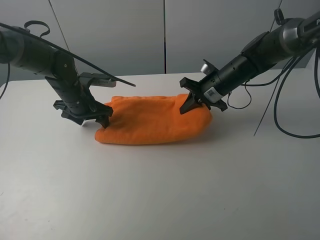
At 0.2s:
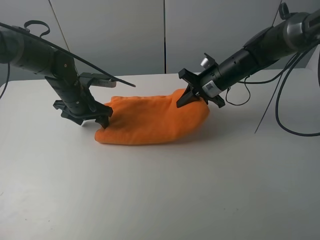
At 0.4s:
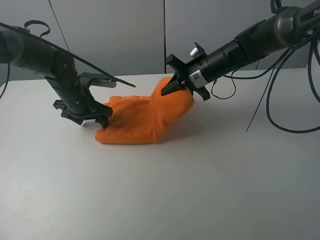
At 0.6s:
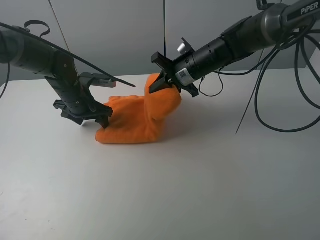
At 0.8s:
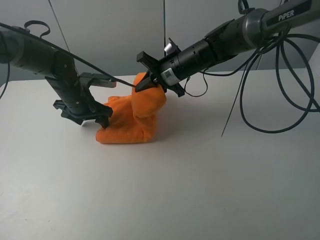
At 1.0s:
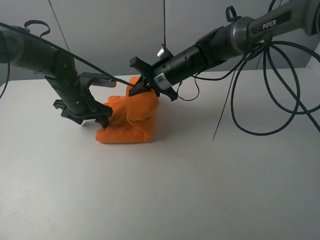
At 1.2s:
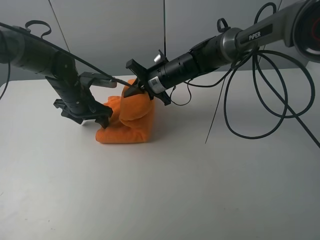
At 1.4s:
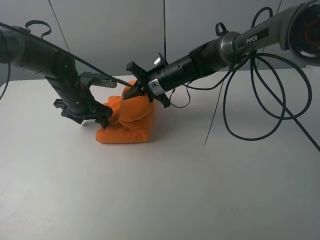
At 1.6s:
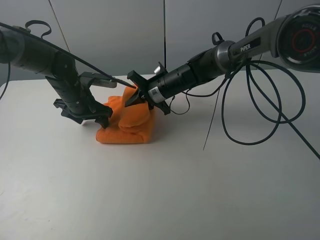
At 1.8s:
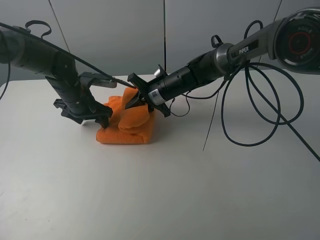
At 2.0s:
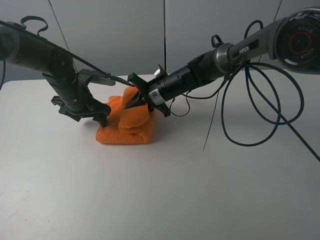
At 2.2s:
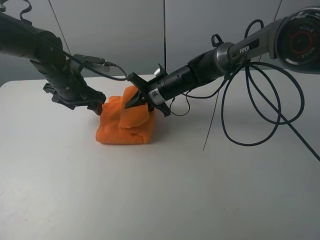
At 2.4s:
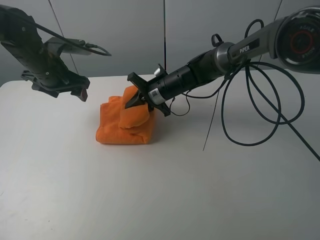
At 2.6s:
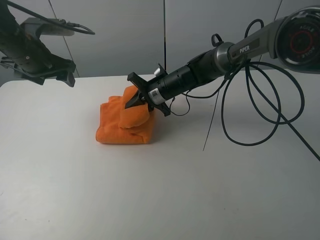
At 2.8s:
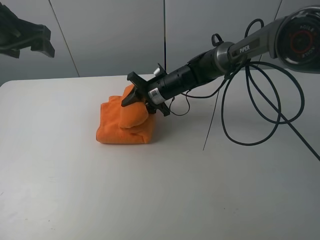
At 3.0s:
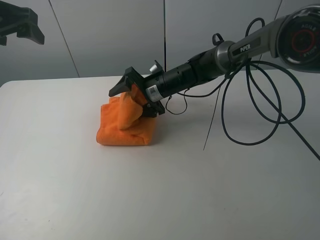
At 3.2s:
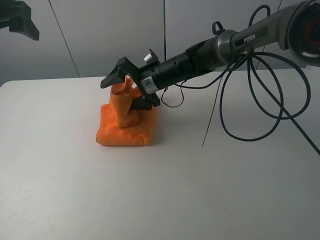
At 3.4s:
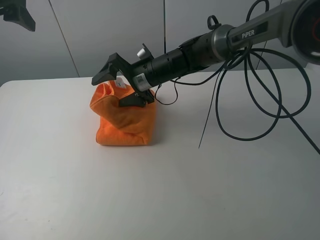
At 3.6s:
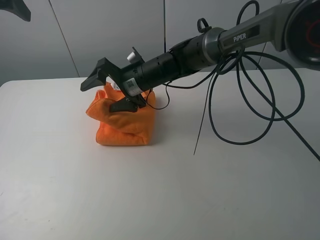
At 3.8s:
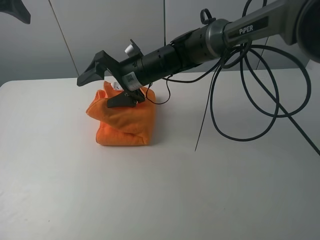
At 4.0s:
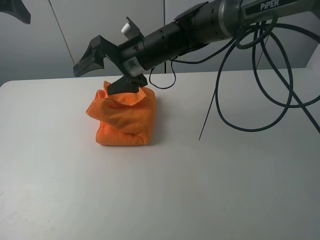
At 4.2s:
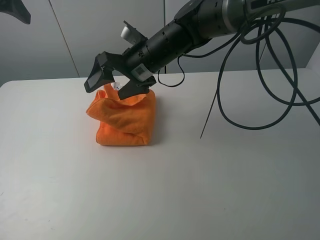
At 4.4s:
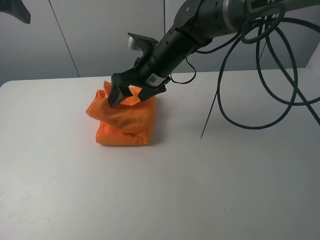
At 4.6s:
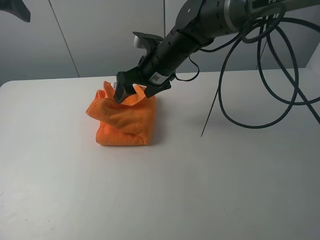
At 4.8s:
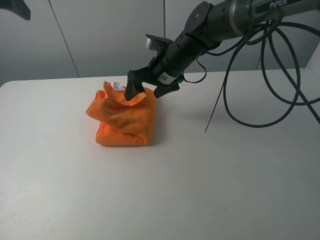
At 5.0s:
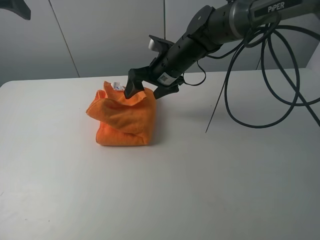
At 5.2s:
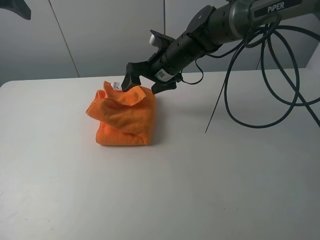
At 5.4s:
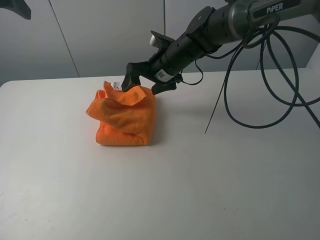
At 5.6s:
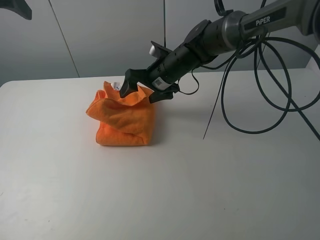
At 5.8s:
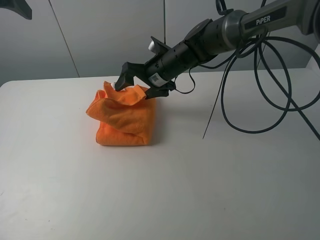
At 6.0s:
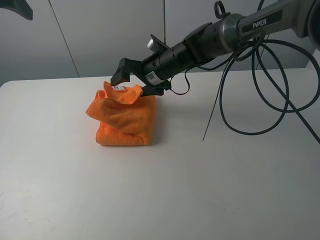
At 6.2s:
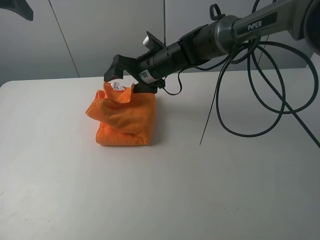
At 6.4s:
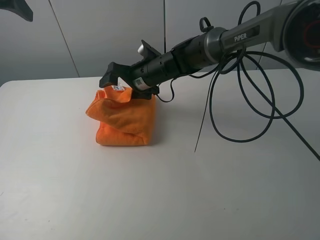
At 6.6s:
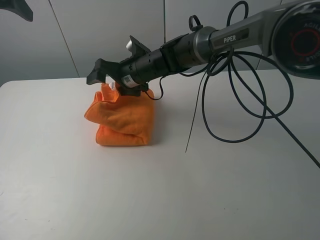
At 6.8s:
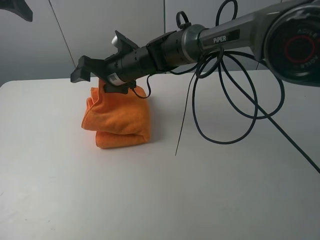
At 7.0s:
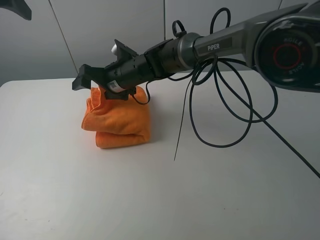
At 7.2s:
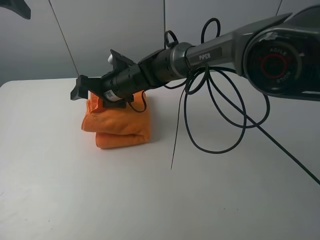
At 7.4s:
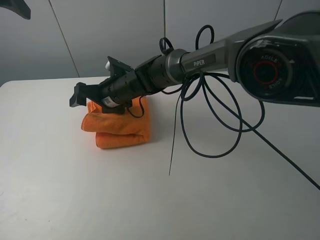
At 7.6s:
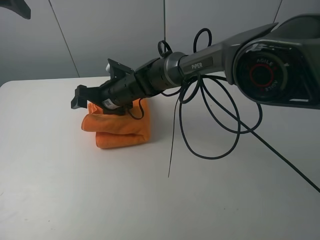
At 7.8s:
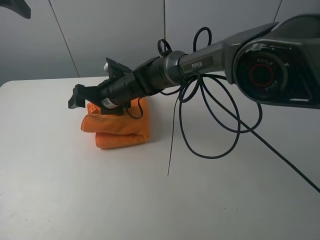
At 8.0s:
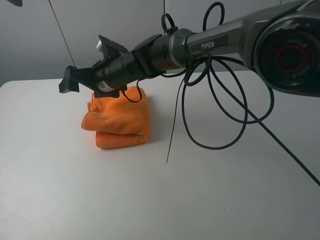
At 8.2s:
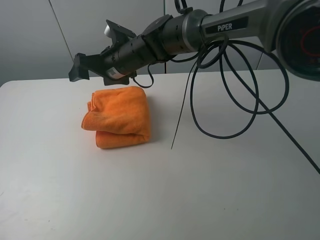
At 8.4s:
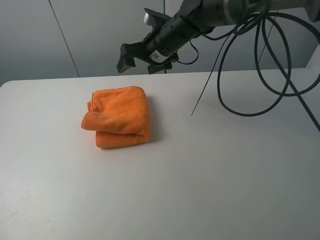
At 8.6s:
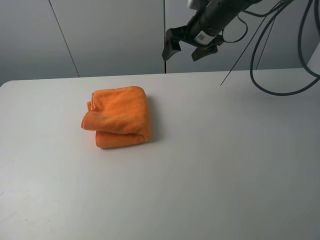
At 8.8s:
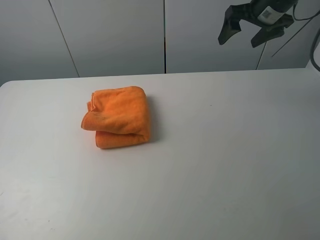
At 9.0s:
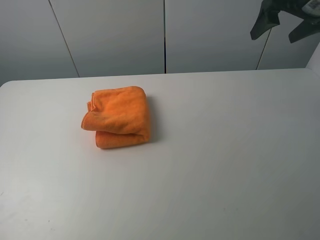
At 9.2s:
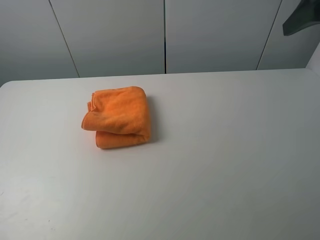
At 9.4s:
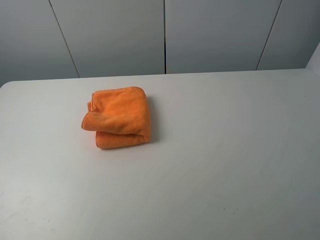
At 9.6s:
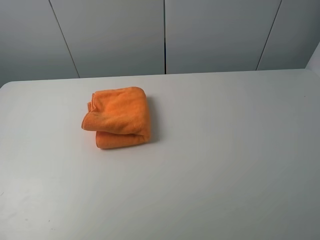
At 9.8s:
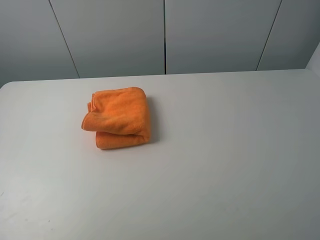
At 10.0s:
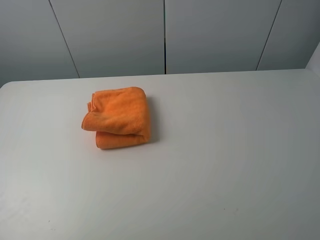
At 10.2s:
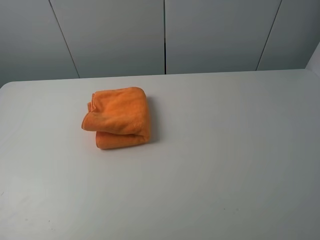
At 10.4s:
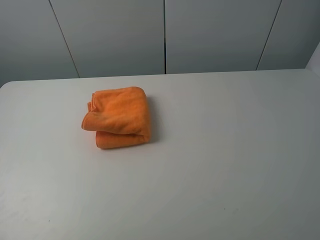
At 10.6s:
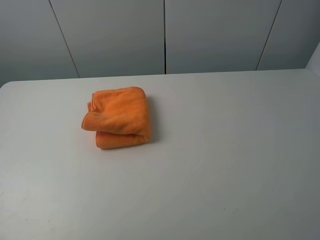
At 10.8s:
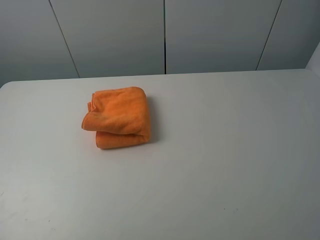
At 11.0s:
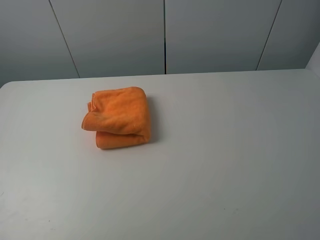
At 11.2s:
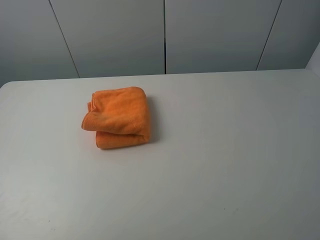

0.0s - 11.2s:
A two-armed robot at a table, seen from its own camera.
Task of the whole recording: fold the towels on the table.
Step, 0.0s - 3.8s: Fold the orange towel from right to left with right gripper.
Step, 4.0s - 8.2s: Arrange the orange towel with the right hand.
0.0s - 1.6s: The right gripper heads to the left, covering roughly 15 cm.
1.6s - 3.2s: The right gripper shifts by approximately 5 cm, and opens up, while the left gripper moves upward, some 25 cm.
4.8s - 6.4s: The right gripper travels to the left by about 5 cm.
6.4s - 8.0s: The right gripper is displaced to the left by some 5 cm.
8.0s - 9.6s: The left gripper heads backward, covering some 25 cm. Meanwhile the right gripper shifts about 50 cm to the right, backward and upward.

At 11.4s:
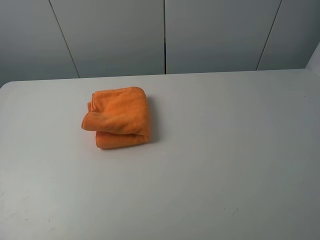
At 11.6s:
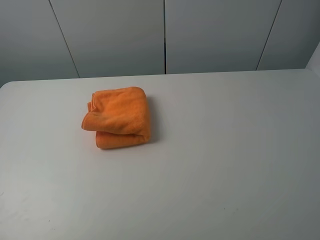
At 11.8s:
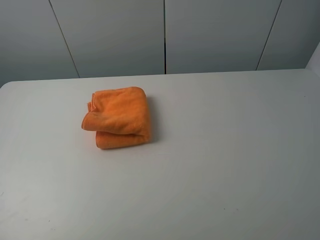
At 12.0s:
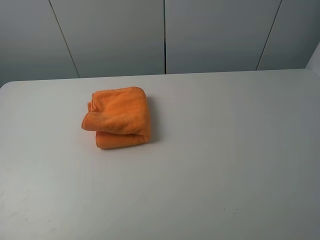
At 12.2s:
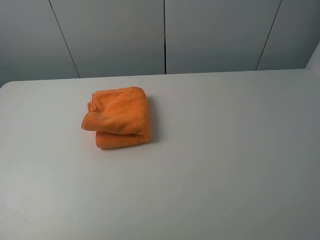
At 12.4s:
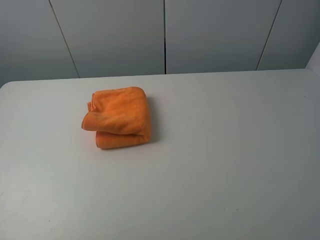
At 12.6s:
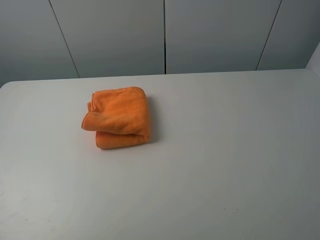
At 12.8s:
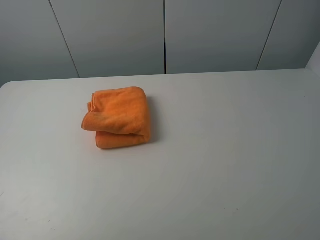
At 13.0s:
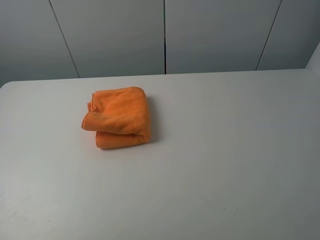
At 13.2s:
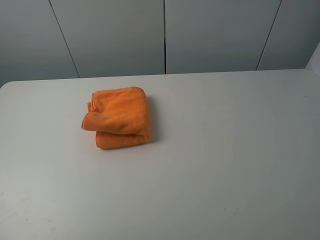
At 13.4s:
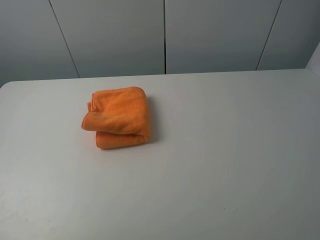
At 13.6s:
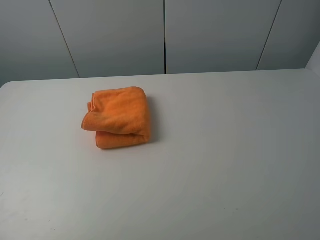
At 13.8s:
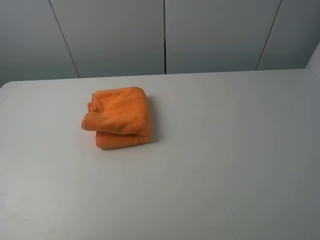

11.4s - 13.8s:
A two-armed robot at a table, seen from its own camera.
Task of the whole recording: fold the towels on the table.
12.6s - 13.8s: Both grippers stay put.

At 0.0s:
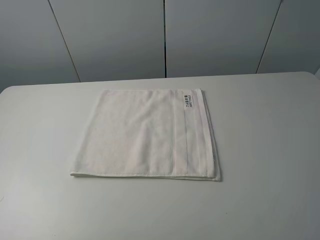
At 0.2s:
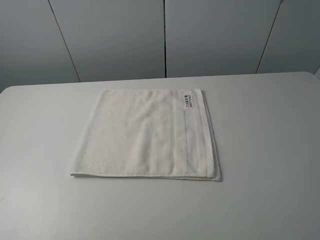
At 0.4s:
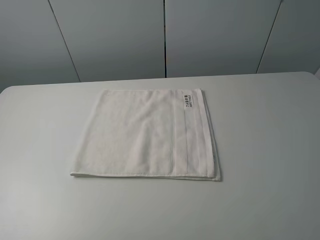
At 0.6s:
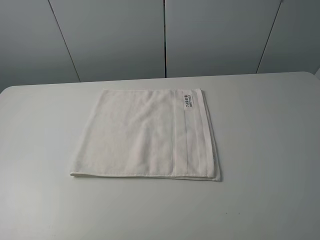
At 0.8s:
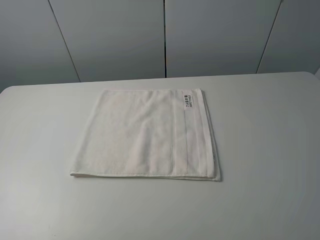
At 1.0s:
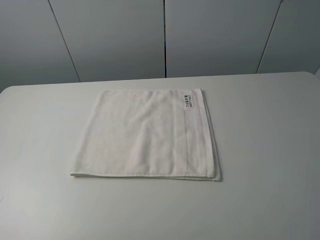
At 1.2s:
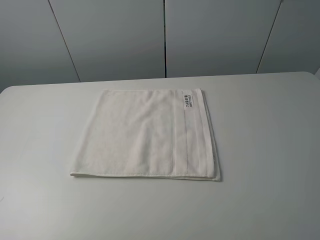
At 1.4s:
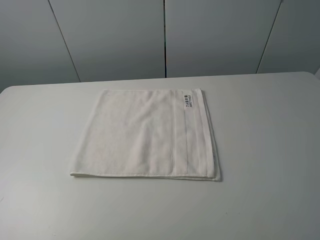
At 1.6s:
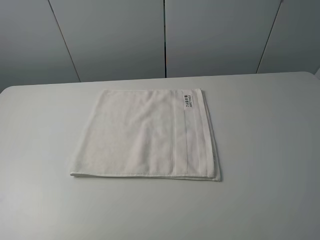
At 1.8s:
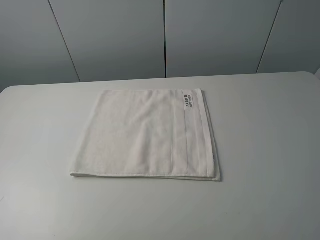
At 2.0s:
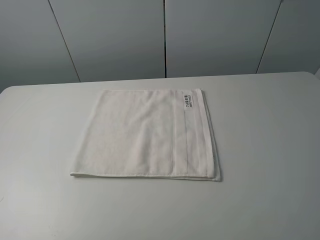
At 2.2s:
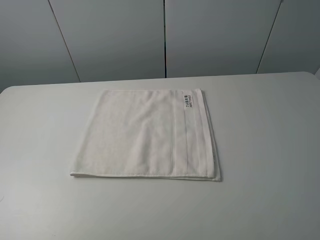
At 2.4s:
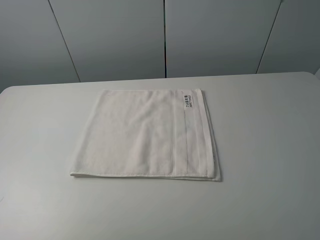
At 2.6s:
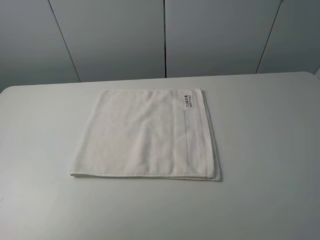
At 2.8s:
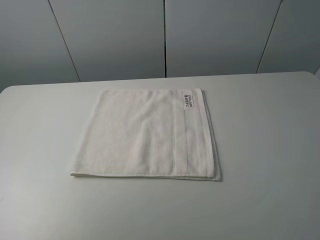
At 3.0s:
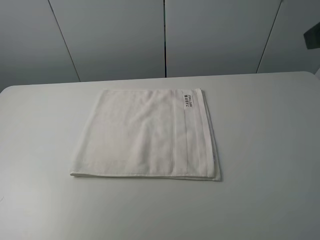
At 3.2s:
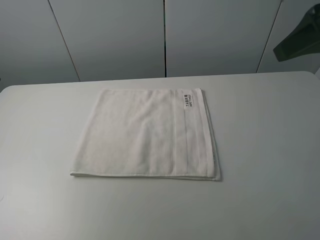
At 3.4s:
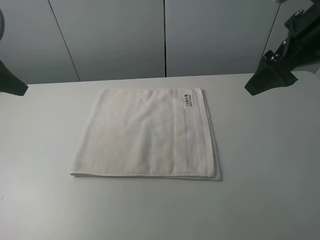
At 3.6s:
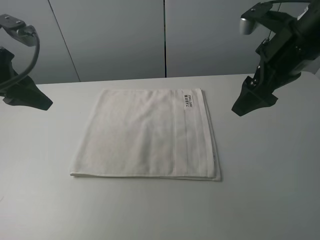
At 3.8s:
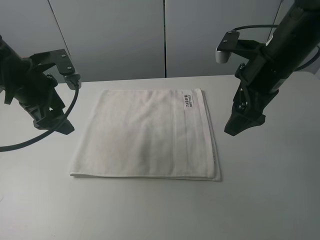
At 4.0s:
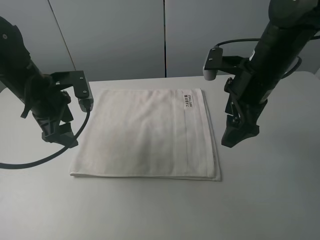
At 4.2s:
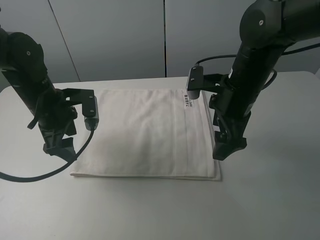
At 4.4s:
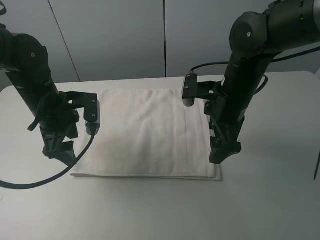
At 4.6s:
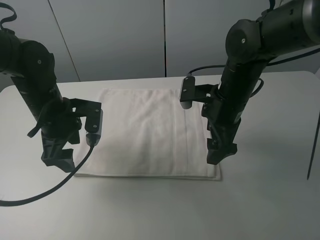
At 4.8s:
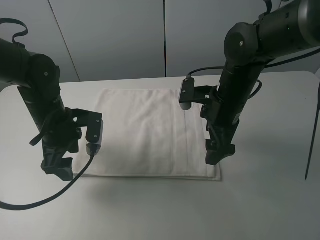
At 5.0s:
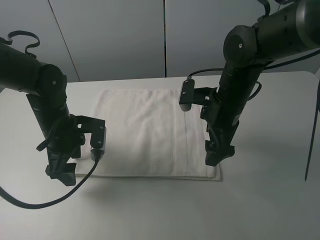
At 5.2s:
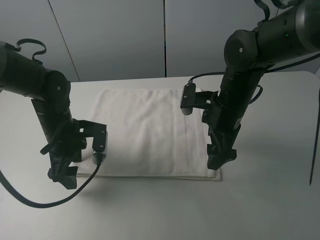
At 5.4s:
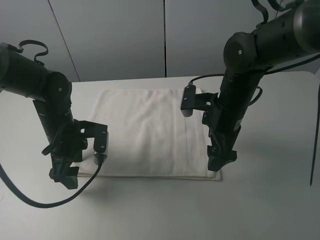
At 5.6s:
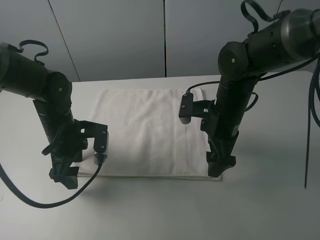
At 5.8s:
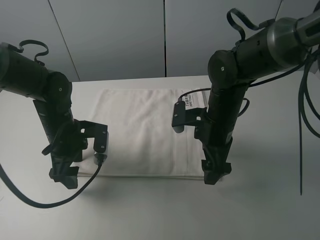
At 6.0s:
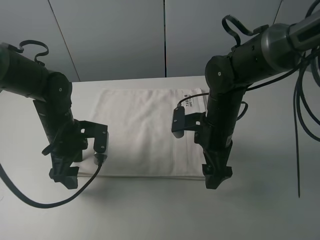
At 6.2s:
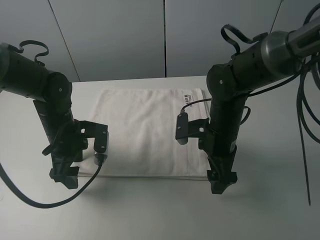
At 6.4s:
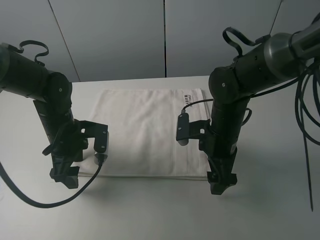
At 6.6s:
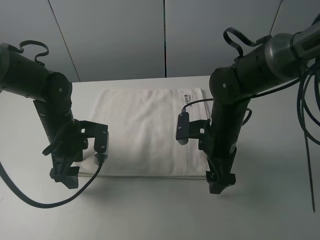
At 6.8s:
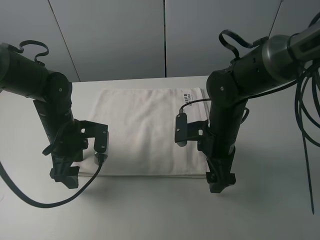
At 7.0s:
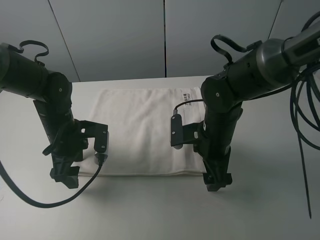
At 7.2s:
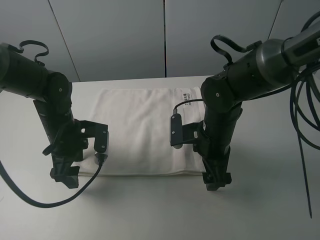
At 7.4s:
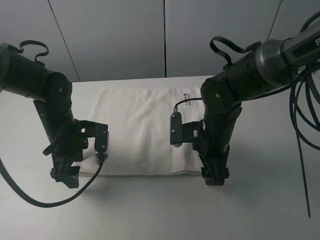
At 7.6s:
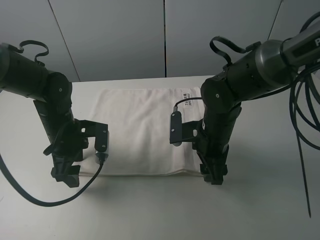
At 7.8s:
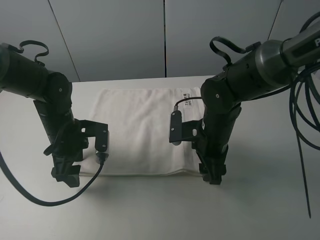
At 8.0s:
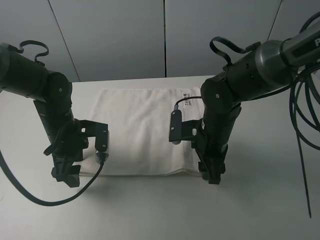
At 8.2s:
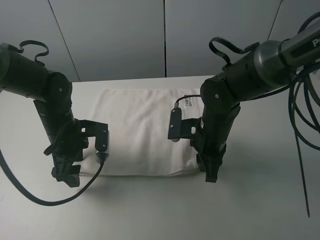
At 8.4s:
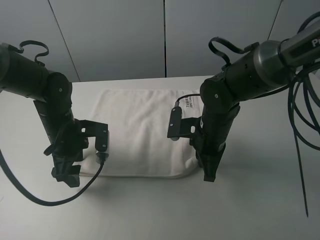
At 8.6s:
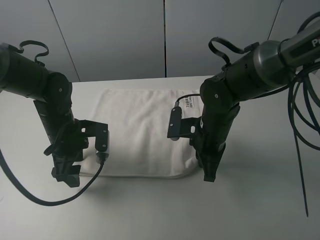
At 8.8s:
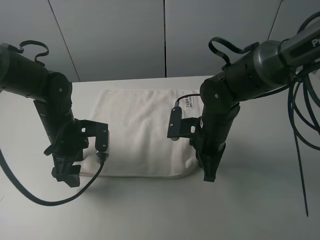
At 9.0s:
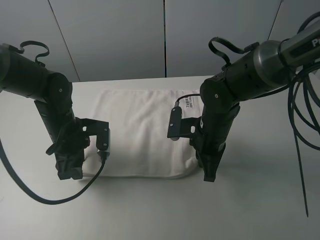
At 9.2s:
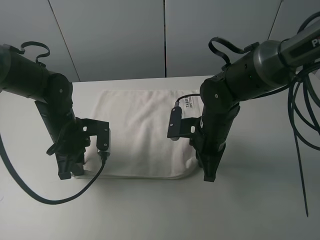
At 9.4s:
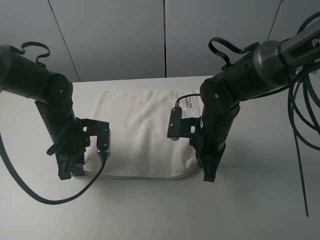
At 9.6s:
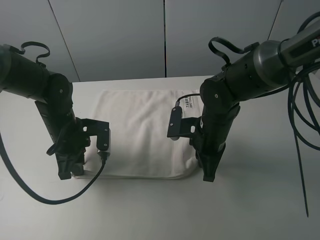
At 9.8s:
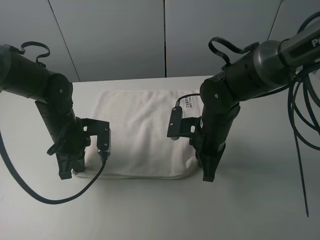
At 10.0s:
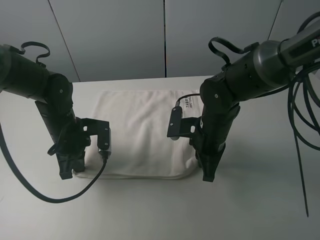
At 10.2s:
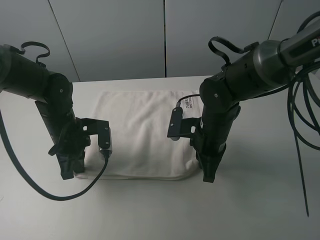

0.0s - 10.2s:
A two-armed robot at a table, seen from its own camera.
Task of the whole recording: fold the towels on the table.
Step, 0.0s - 8.4s: Grasp the white towel with the right gripper.
Step, 8.6s - 9.8s: Grasp the white towel with the left gripper.
0.0s - 1.4s: Neither gripper changes place.
3.0s - 4.4s: The right gripper heads downward, to the left and forward, covering roughly 25 cm; the left gripper shifts approximately 25 cm downward and to the right.
4.4s - 5.8s: The left gripper travels downward by about 5 cm. The right gripper ends up approximately 5 cm from where it was.
5.8s - 7.2s: The grippers stay close to where they were, moving slightly.
7.2s - 8.8s: The right gripper closes its fingers.
8.8s - 10.2s: The left gripper closes.
